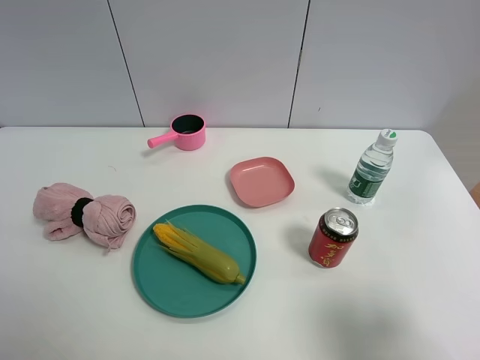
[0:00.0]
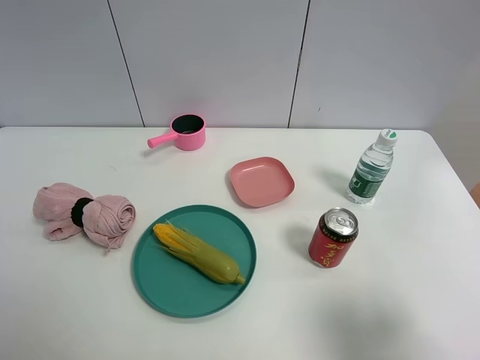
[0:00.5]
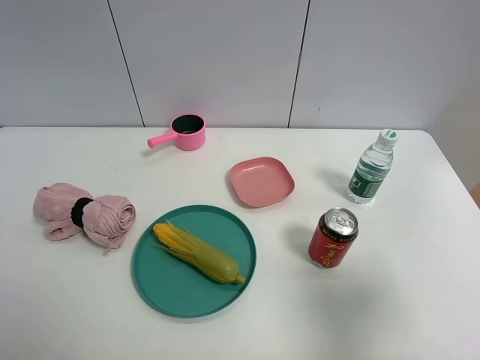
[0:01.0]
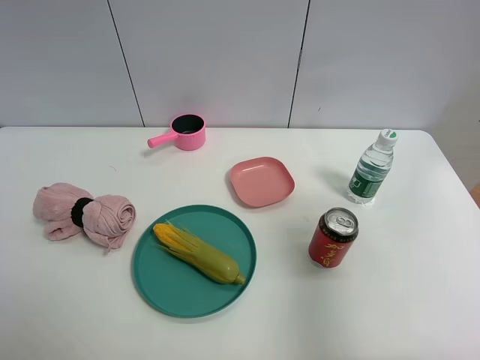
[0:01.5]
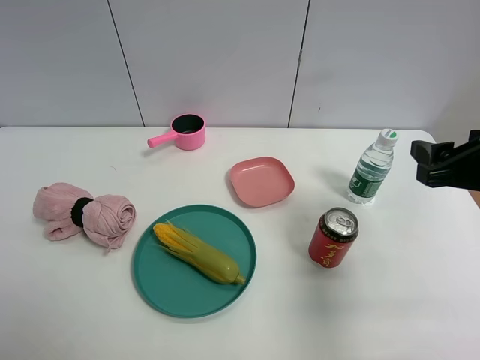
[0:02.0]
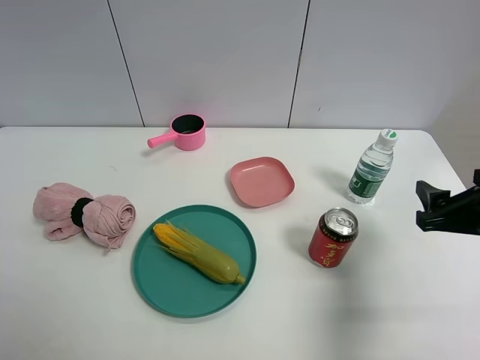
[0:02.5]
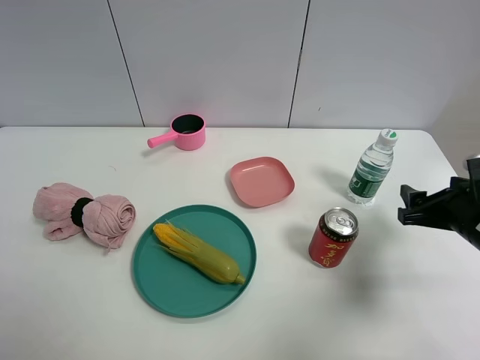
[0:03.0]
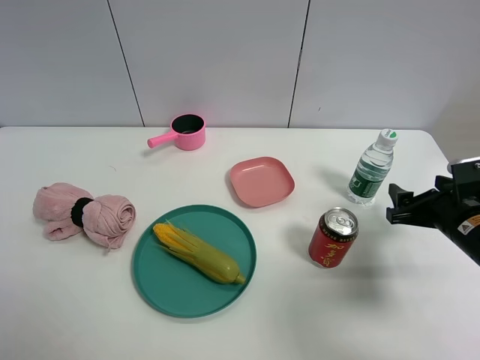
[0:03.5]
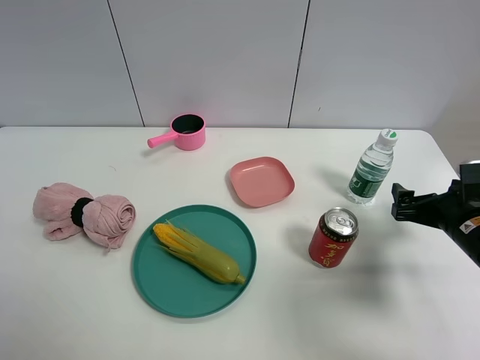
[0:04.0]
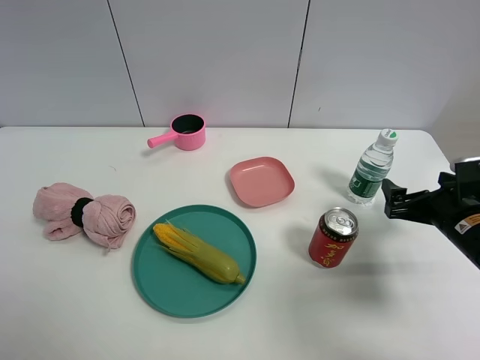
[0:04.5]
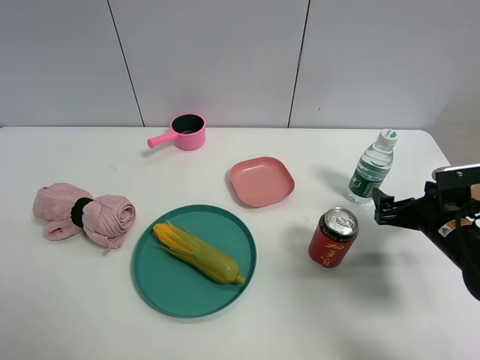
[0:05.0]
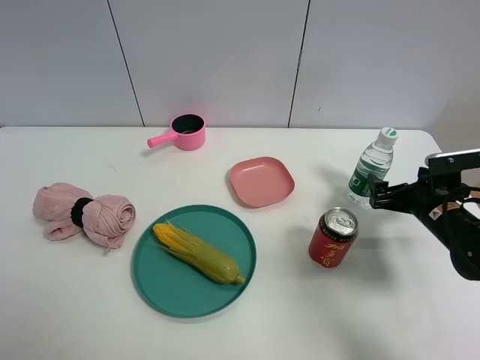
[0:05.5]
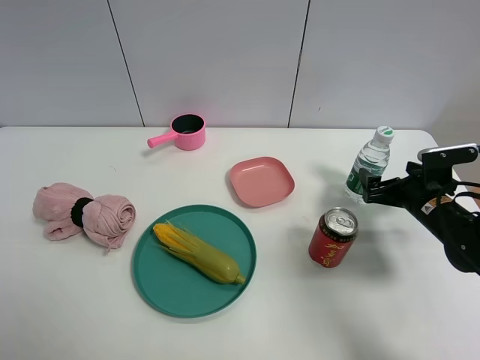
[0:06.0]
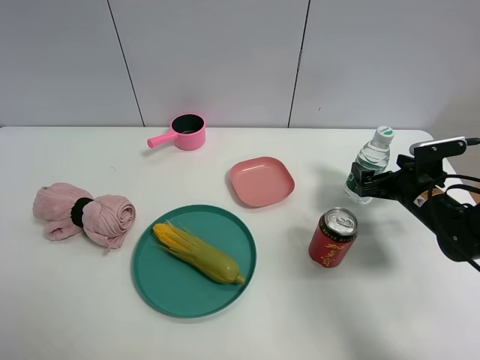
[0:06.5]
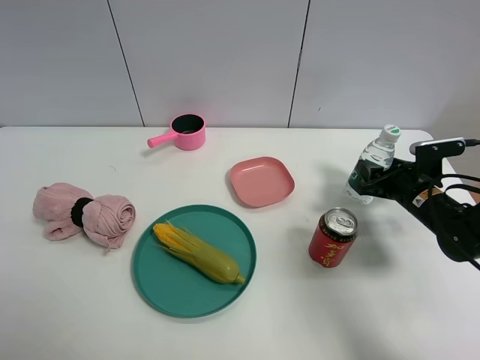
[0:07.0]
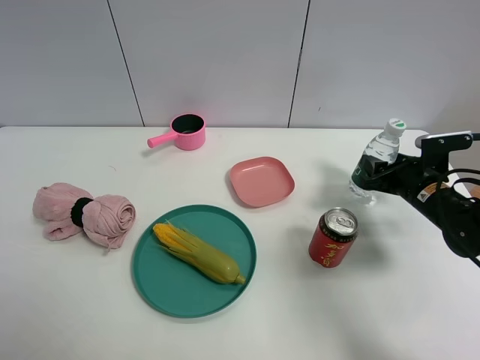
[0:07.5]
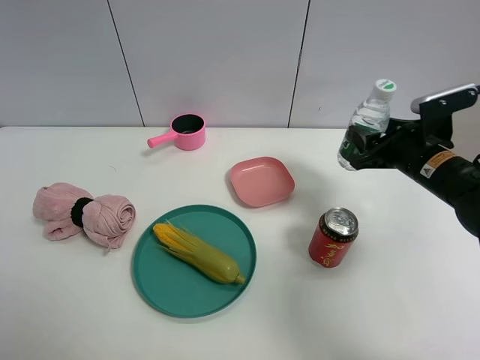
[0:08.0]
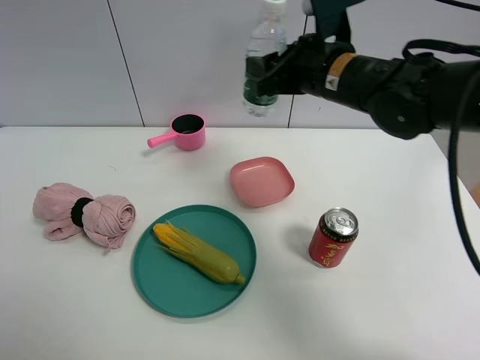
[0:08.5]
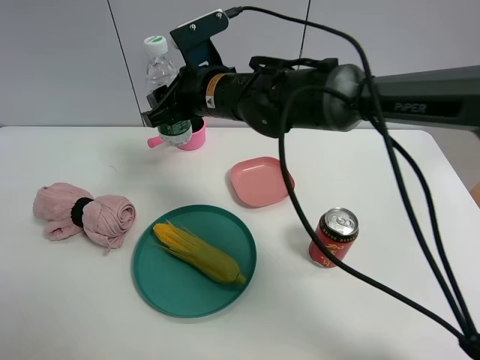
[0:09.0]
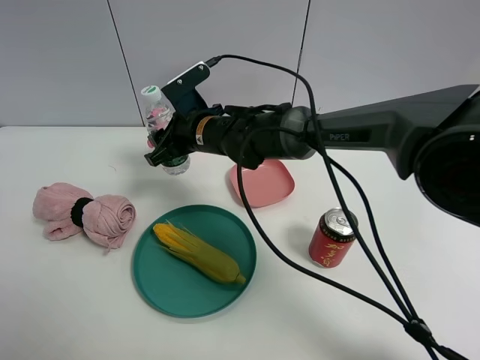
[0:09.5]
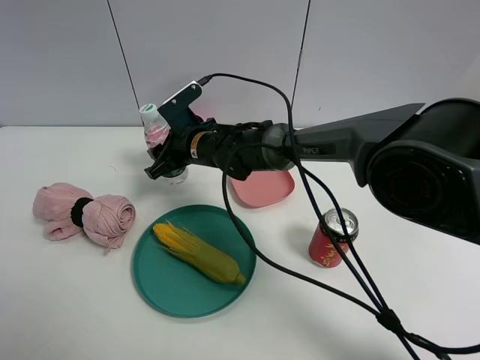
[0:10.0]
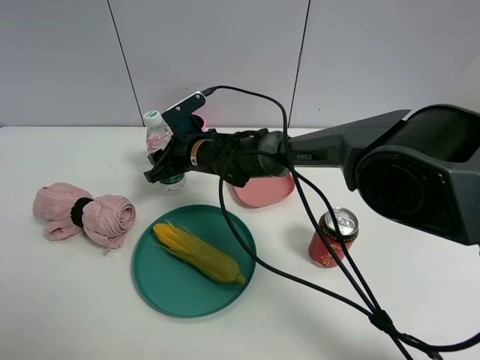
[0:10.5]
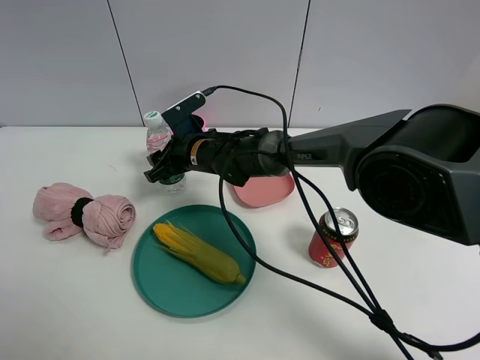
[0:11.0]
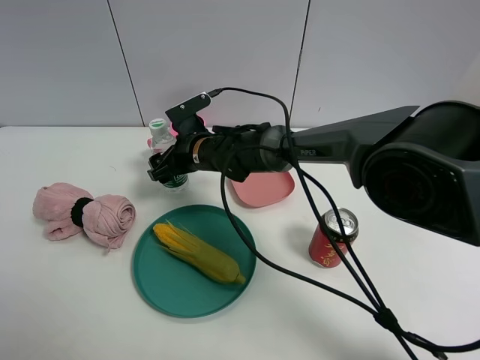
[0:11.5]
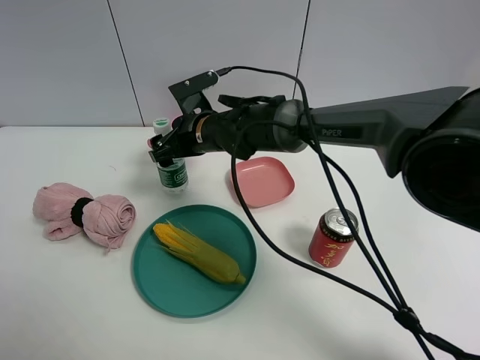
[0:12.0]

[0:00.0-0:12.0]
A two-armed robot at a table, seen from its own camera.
Task of the whole recording: the gripper move the object.
Step, 0:00.0 to 0:07.0: Grasp the YiBao mineral water with the right gripper.
Step, 0:07.5 to 0:11.5: Place the YiBao mineral water on the table with the right gripper.
0:00.0 to 0:02.0: The right gripper goes roughly 20 cm forward, and closes.
0:02.0 to 0:04.0: The right gripper is displaced downward by approximately 15 cm, and opens.
0:04.0 to 0:06.0: The right gripper travels forward by some 5 cm.
0:06.0 to 0:08.0: The right gripper travels upward and to the left by about 10 cm, and closes up.
0:08.0 to 0:10.0: The right gripper moves to the left, about 30 cm.
0:10.0 to 0:12.0: The right gripper opens up.

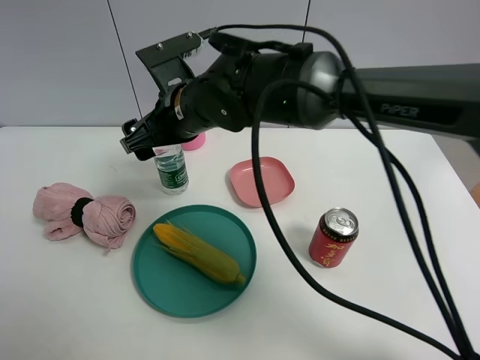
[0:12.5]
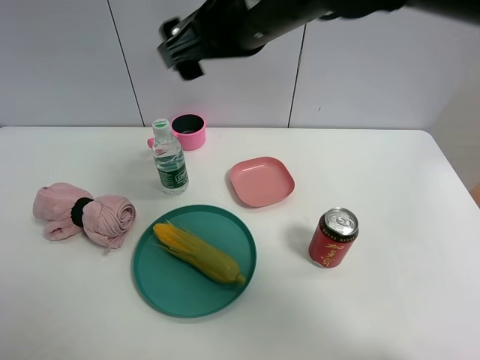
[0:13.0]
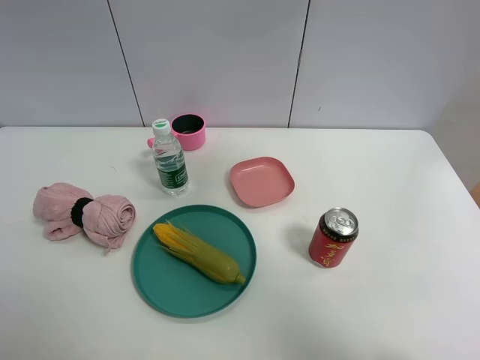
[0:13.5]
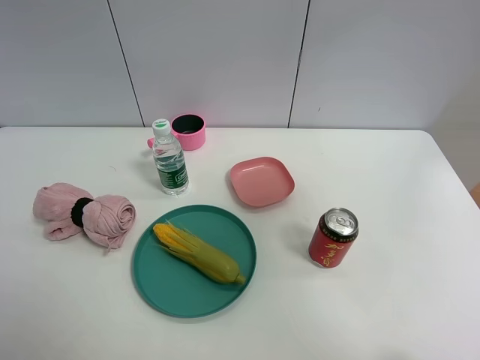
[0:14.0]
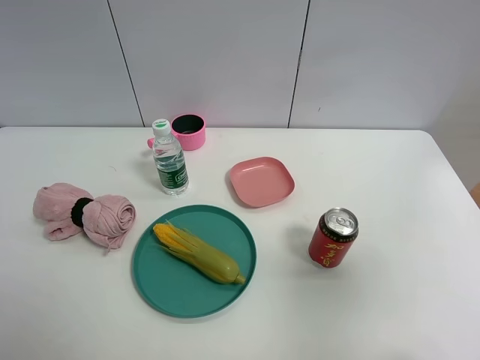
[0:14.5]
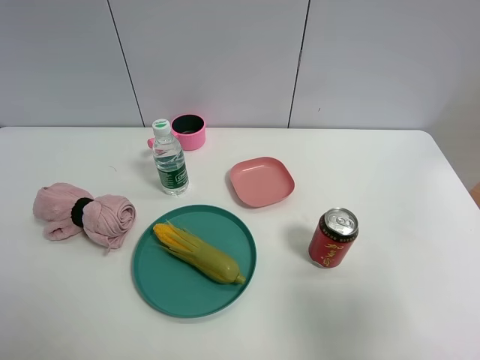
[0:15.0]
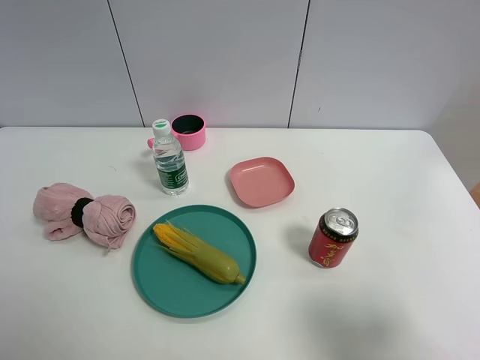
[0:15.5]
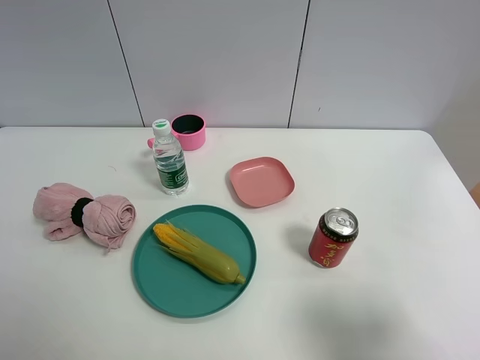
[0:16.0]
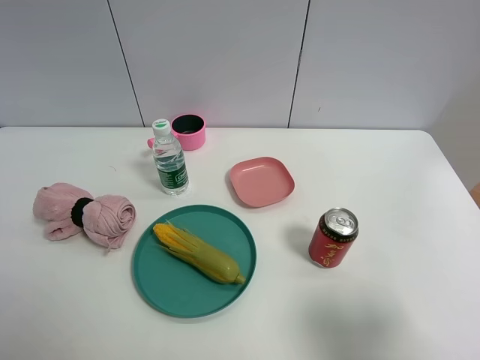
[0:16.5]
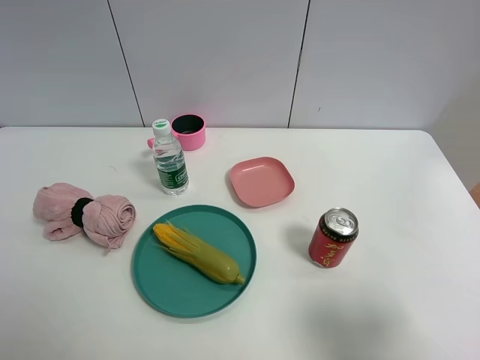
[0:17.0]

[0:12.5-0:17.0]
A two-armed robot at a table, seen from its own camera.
Task of the whole recording: the gripper move the object.
0:12.5 to 0:14.5: The right gripper moves to the right and backward, approximately 50 cm.
0:14.5 to 0:17.0: The right gripper travels downward by roughly 15 cm.

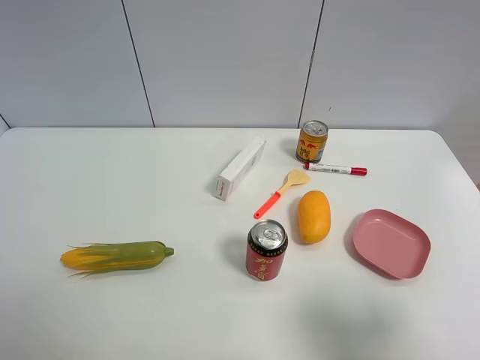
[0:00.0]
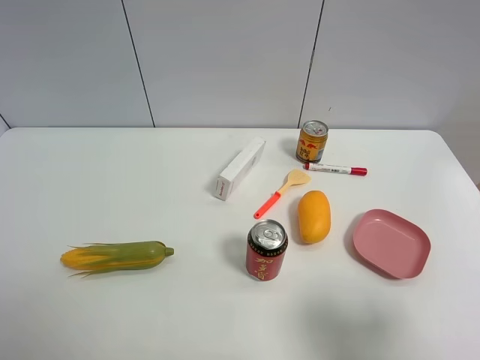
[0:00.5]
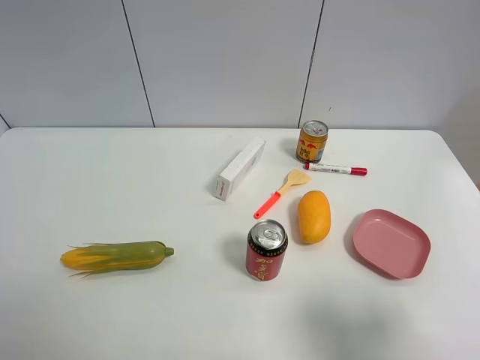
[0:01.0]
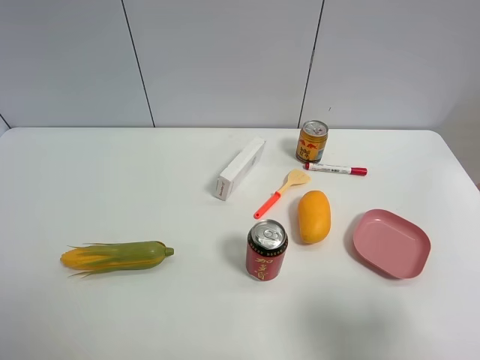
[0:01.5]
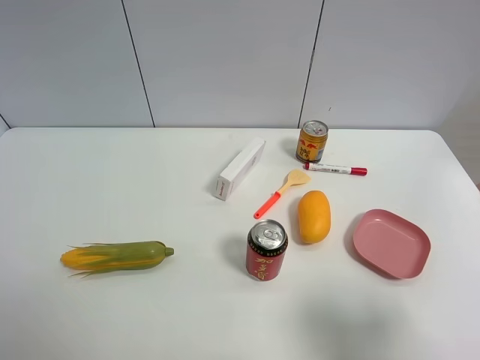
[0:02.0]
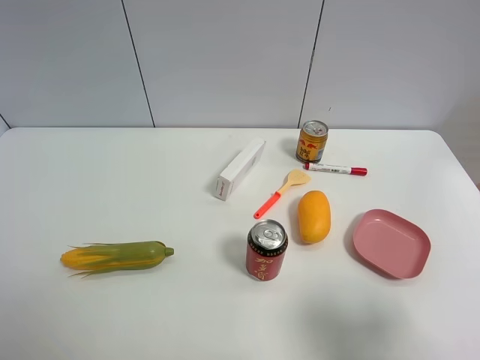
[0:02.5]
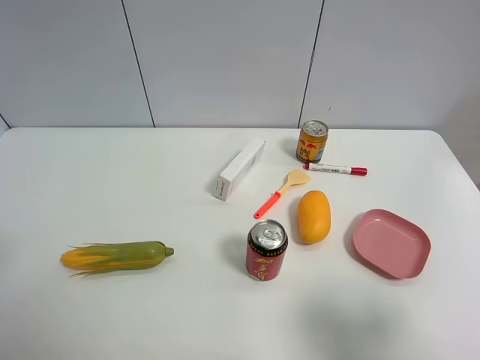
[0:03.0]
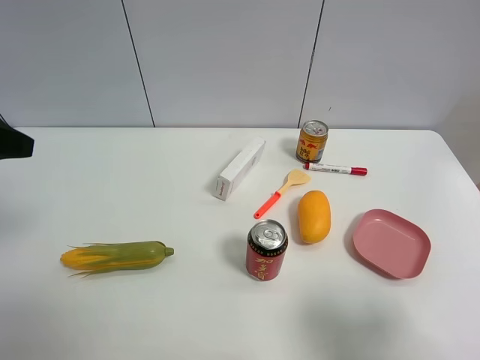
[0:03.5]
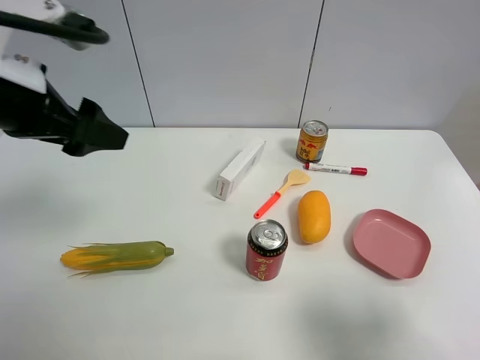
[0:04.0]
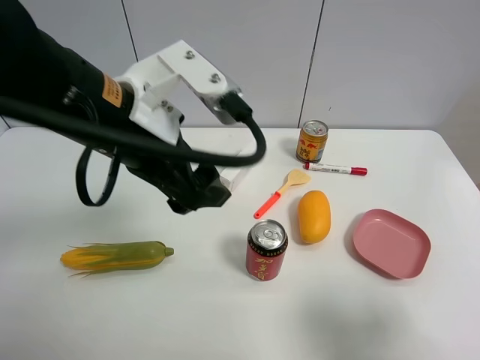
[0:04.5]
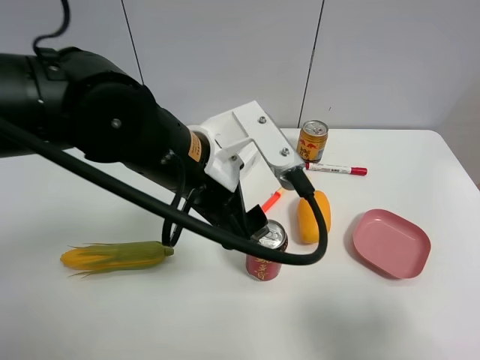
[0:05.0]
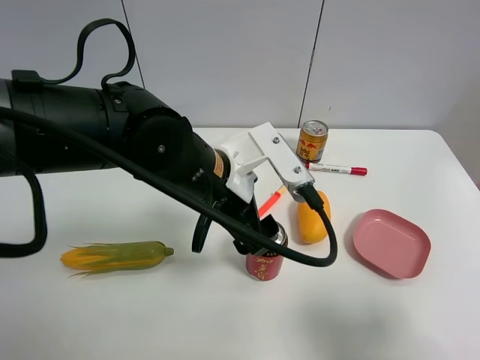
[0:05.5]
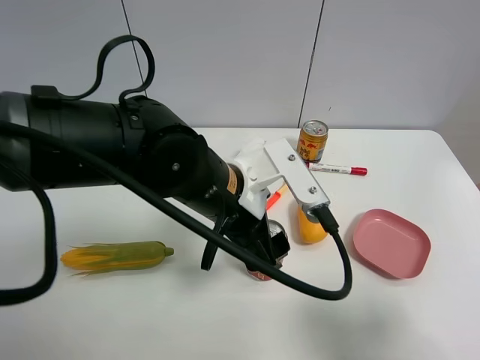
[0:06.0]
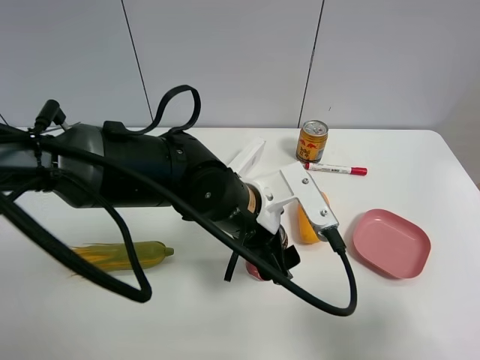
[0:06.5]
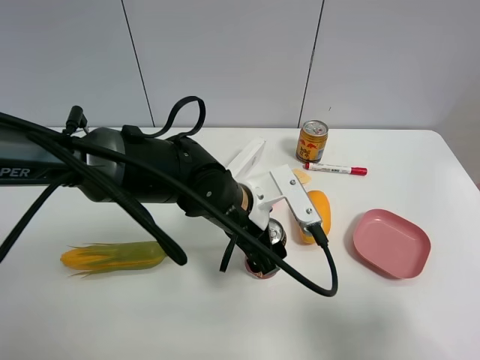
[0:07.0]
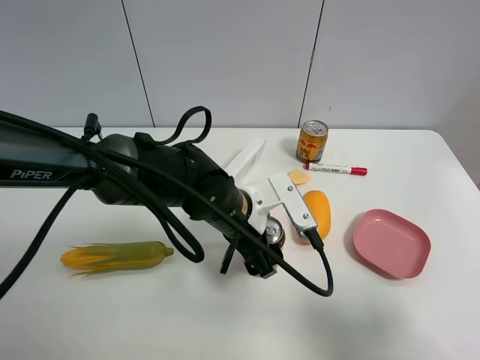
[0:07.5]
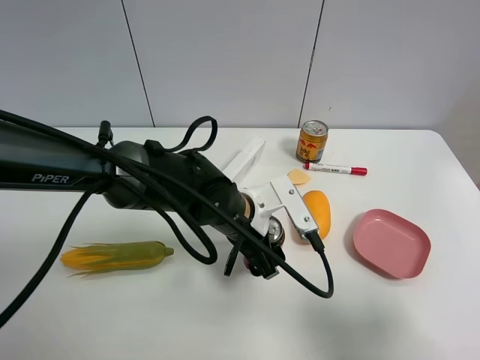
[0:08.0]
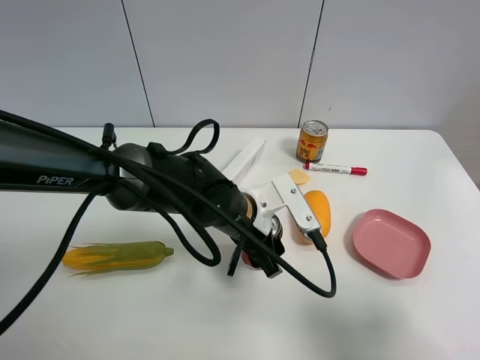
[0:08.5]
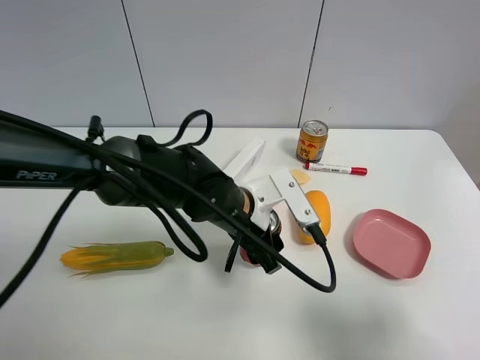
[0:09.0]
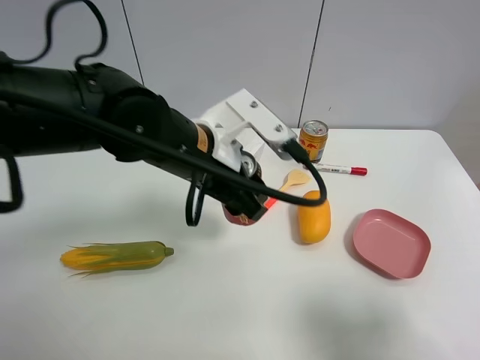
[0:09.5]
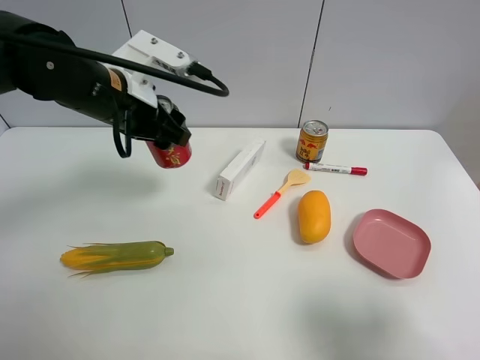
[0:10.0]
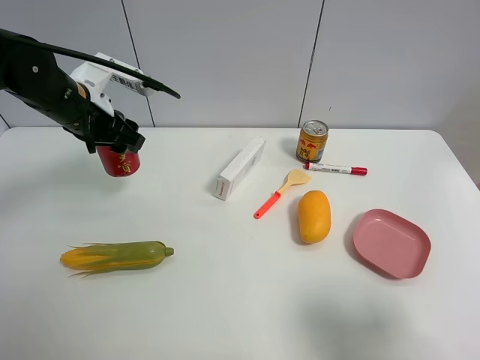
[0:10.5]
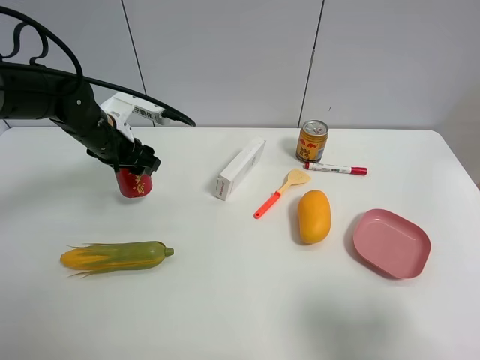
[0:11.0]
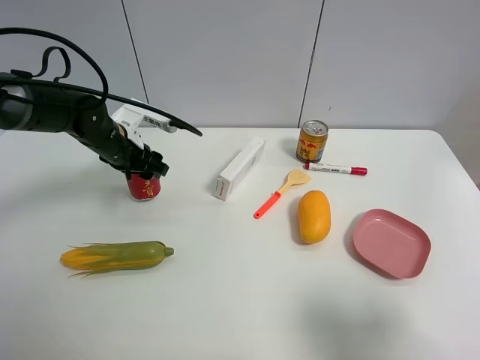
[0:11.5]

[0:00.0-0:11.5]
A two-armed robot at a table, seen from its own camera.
Task of the whole recording: the gripper move the object.
Step, 0:00.0 to 0:08.5: Grasp the Jia Duo Bao with the left gripper.
0:00.0 to 0:02.0: The two grippers keep their place.
0:02.0 to 0:04.0: The left gripper goes approximately 25 cm forward and to the right.
0:04.0 to 0:06.0: The left gripper heads to the right and downward, covering about 25 cm.
0:06.0 to 0:07.5: The left gripper moves downward, roughly 10 cm.
0:07.5 to 0:09.5: The left gripper travels upward by approximately 10 cm, and closes.
0:09.5 to 0:11.5: The left gripper moves to the left, forward and downward, some 25 cm.
